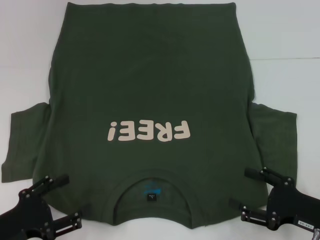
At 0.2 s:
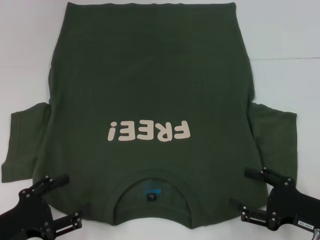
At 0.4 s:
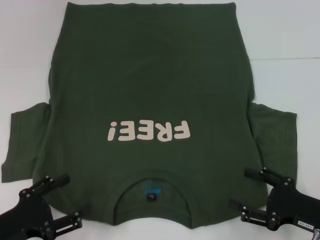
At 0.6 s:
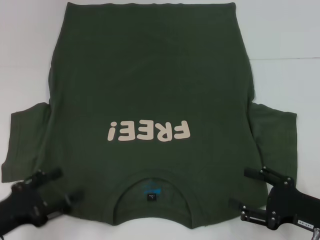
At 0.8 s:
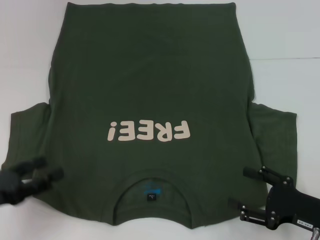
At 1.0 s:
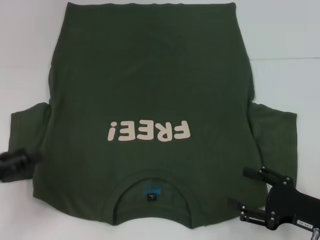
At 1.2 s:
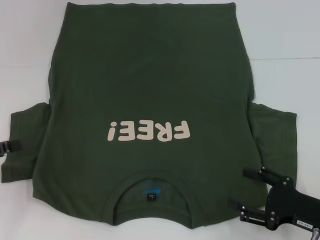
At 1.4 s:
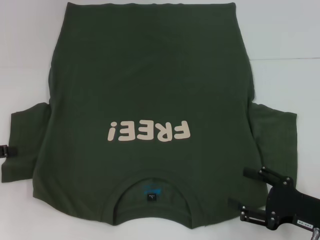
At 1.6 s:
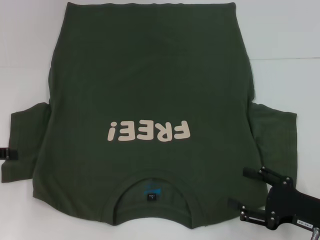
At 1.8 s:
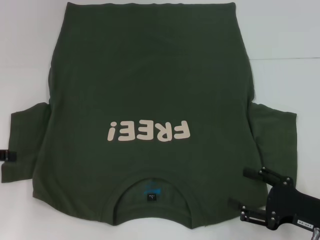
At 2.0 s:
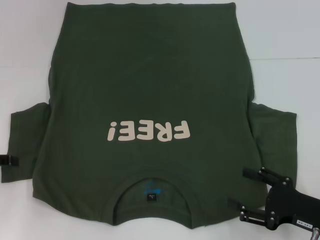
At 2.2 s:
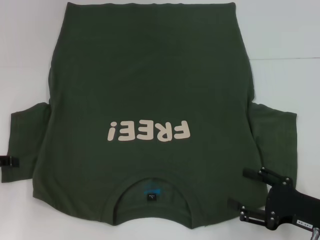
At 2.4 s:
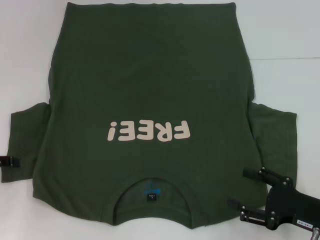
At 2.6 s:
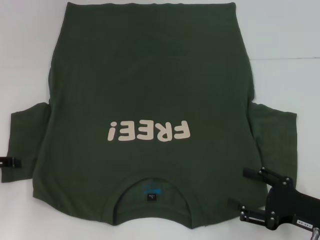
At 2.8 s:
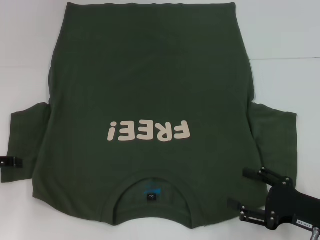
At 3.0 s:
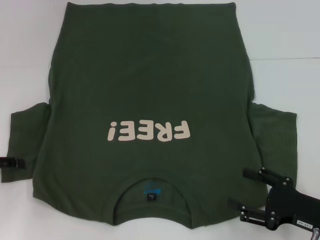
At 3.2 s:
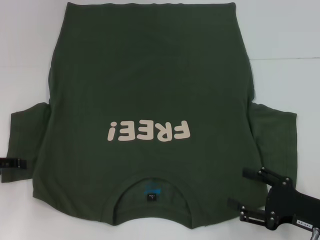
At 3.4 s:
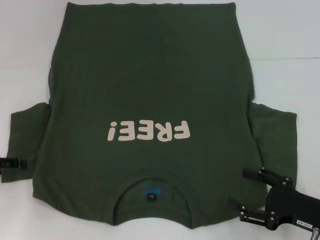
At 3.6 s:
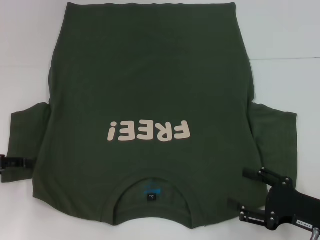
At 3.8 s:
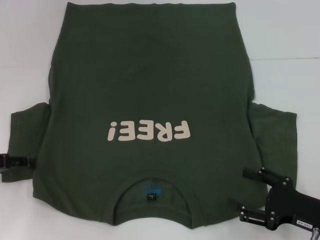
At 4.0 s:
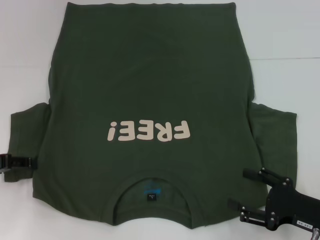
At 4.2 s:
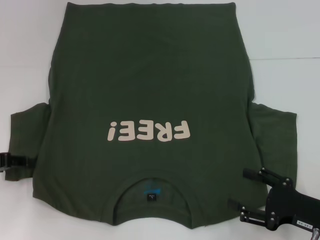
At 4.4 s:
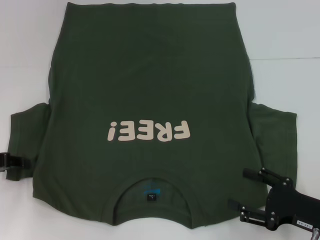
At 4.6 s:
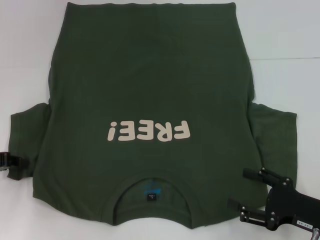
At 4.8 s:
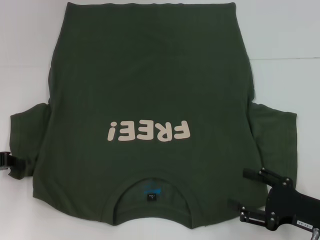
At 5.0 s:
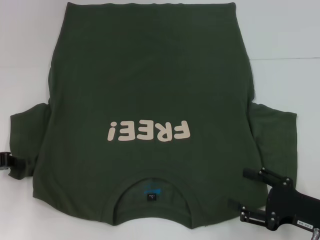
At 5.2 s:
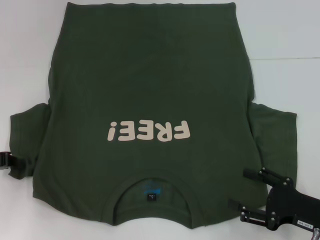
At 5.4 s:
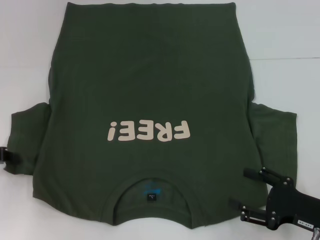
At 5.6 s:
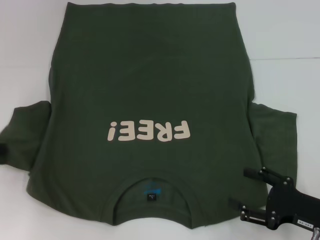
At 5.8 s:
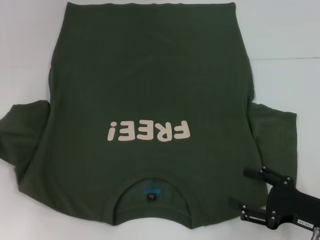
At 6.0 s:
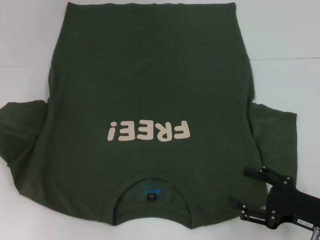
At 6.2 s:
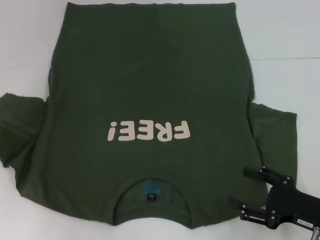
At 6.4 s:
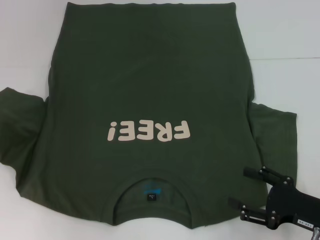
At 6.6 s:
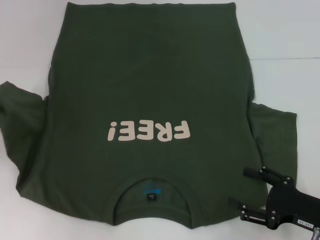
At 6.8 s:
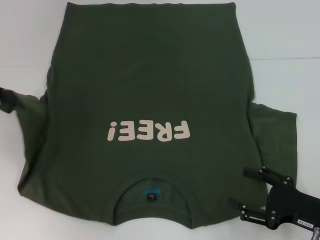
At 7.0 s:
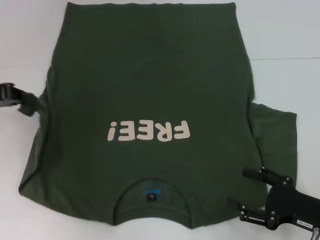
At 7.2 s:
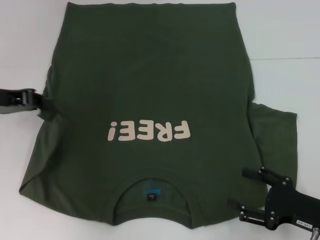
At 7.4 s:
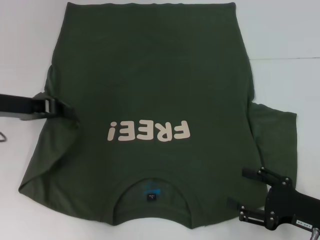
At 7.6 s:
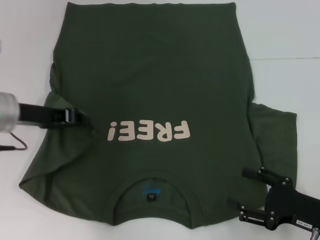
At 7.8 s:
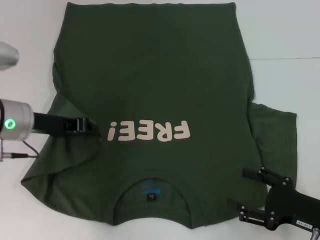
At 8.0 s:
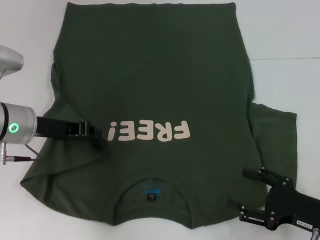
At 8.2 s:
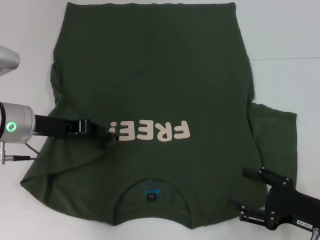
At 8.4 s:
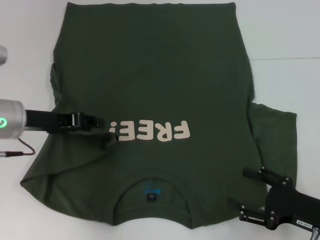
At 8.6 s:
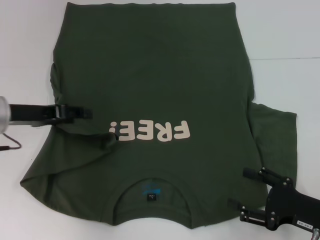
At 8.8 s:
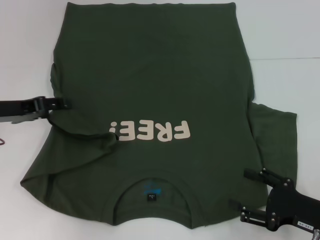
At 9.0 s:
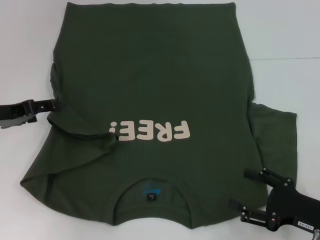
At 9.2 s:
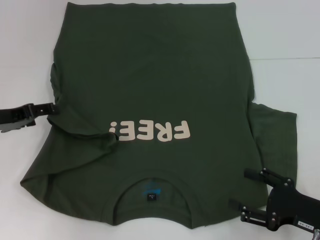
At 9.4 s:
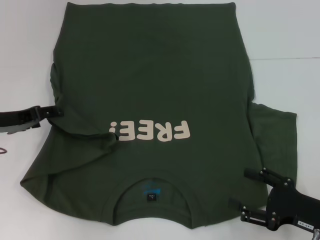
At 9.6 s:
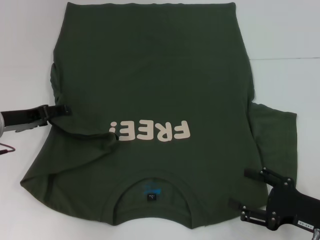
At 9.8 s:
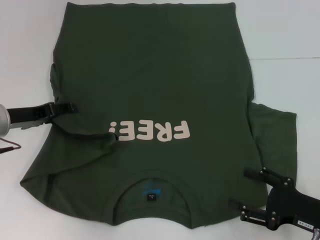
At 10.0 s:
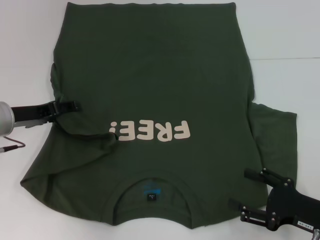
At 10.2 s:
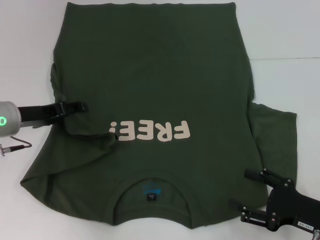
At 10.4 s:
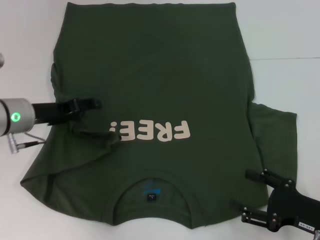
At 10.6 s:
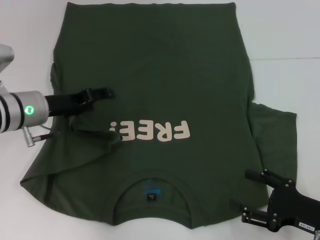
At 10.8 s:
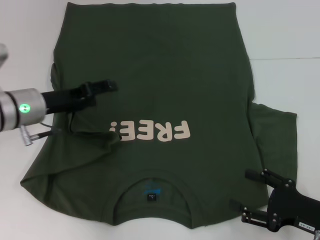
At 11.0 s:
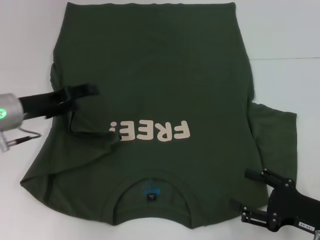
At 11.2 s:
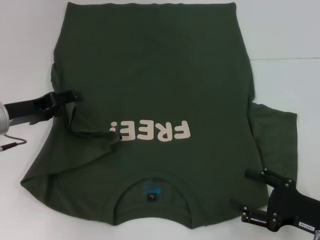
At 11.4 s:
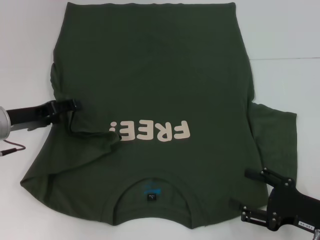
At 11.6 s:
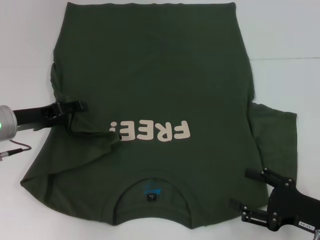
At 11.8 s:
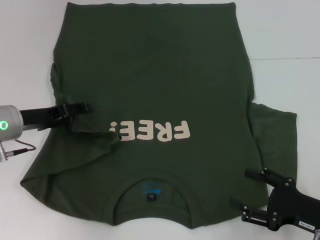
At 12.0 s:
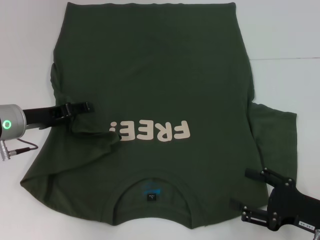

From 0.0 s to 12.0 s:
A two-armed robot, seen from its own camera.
From 0.0 s to 1.6 s: The left gripper is displaced forward, upward and to the left by approximately 20 cm.
From 4.4 s to 6.0 s: The left gripper changes place by some 5 cm, and closes up.
From 6.0 s to 7.6 s: The left gripper goes approximately 15 cm to the right.
From 7.6 s to 9.0 s: The left gripper is displaced to the left by about 5 cm, and opens.
From 9.0 s to 10.4 s: The left gripper heads to the right, covering approximately 5 cm.
From 10.4 s to 12.0 s: The grippers move only a little.

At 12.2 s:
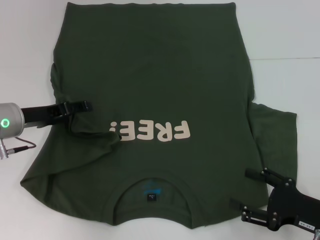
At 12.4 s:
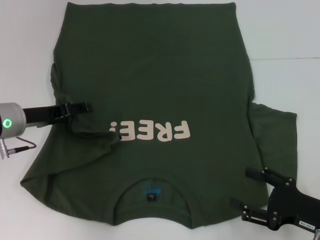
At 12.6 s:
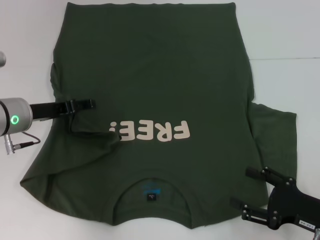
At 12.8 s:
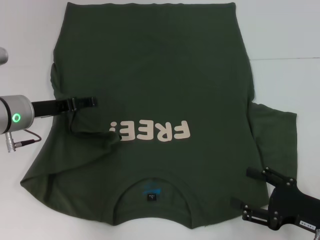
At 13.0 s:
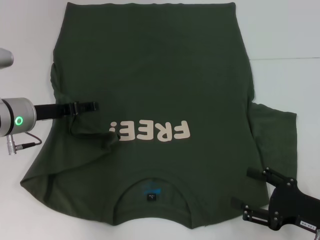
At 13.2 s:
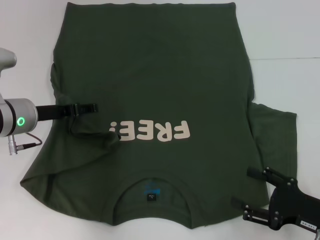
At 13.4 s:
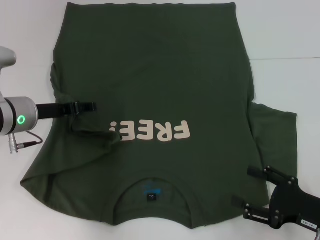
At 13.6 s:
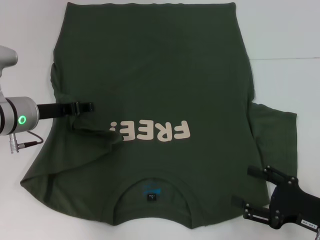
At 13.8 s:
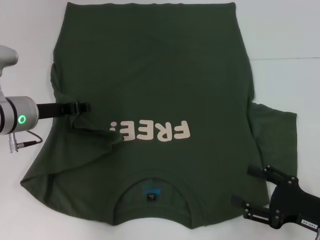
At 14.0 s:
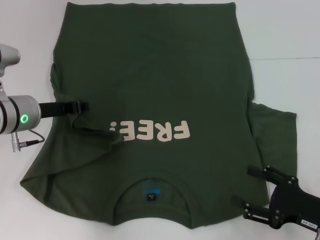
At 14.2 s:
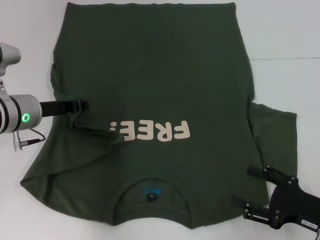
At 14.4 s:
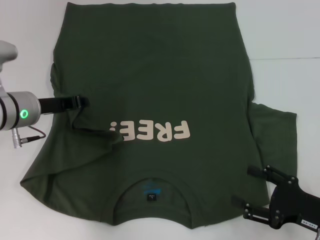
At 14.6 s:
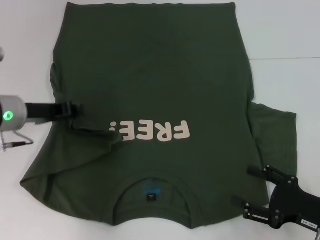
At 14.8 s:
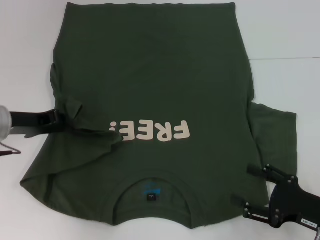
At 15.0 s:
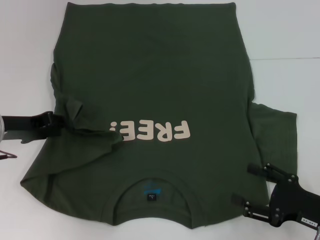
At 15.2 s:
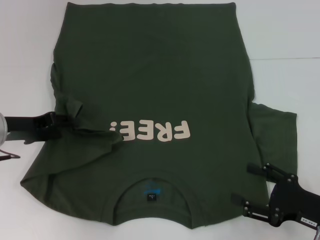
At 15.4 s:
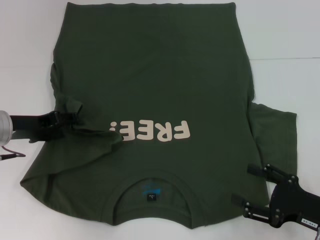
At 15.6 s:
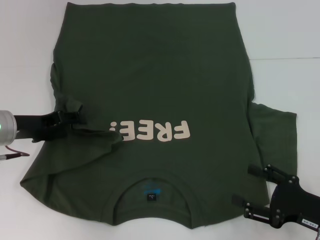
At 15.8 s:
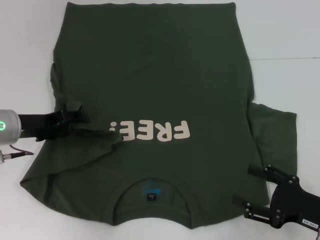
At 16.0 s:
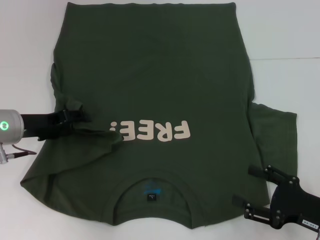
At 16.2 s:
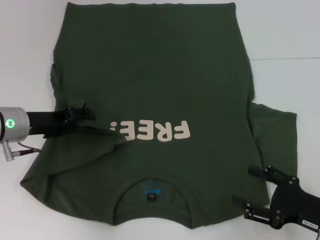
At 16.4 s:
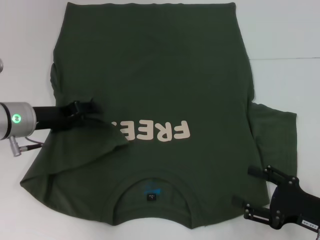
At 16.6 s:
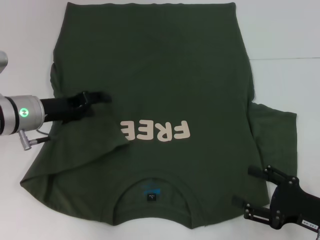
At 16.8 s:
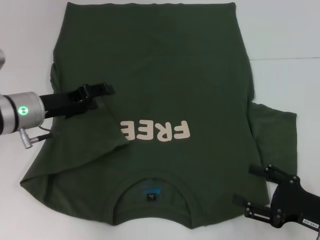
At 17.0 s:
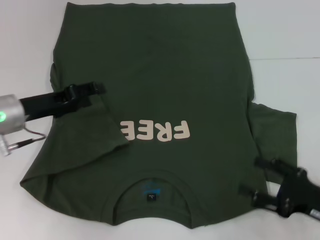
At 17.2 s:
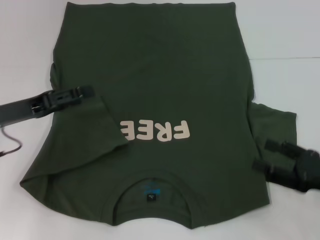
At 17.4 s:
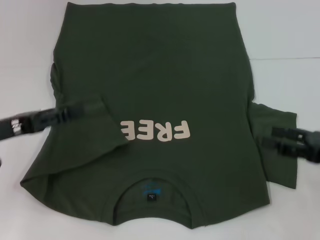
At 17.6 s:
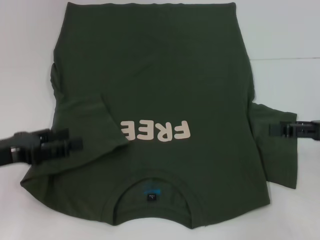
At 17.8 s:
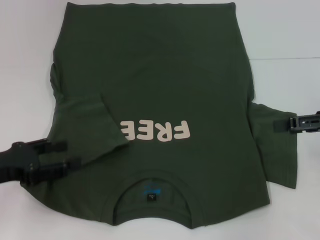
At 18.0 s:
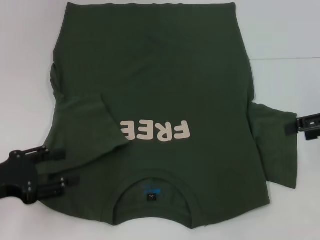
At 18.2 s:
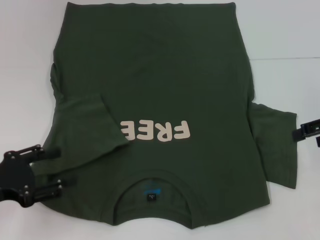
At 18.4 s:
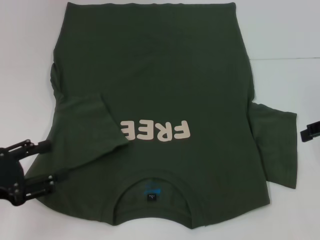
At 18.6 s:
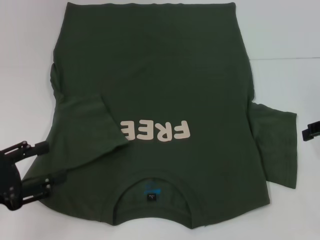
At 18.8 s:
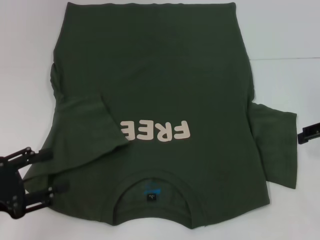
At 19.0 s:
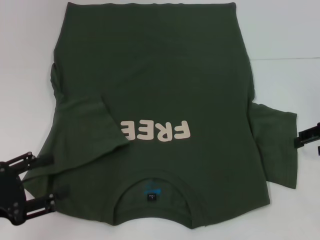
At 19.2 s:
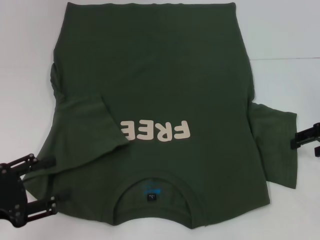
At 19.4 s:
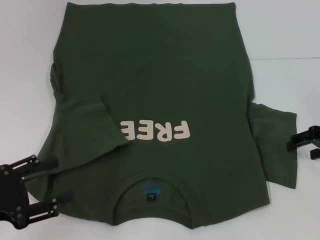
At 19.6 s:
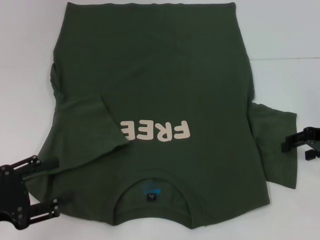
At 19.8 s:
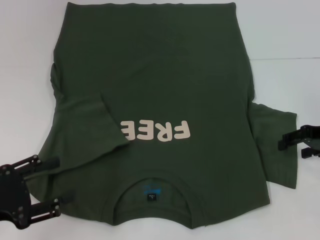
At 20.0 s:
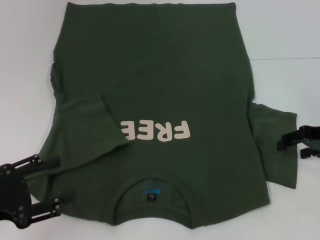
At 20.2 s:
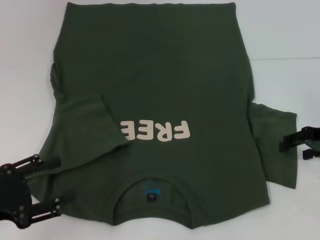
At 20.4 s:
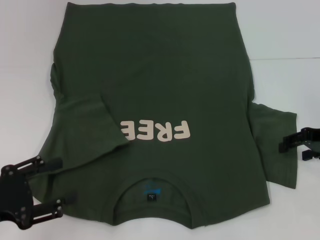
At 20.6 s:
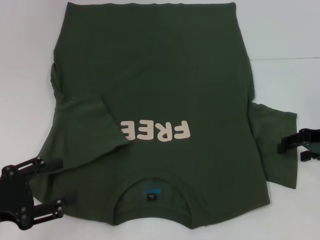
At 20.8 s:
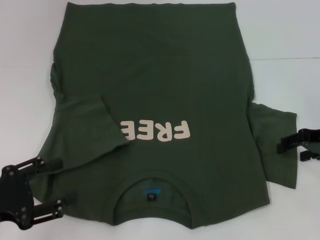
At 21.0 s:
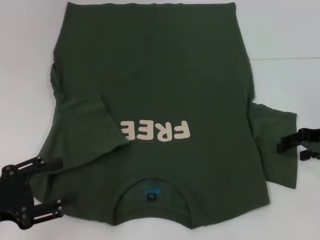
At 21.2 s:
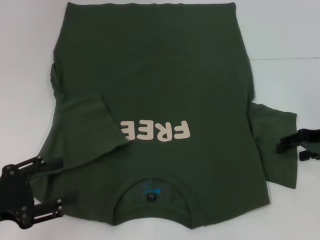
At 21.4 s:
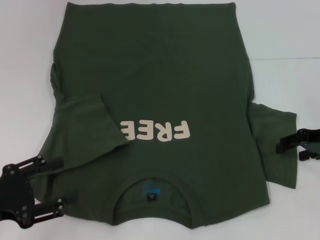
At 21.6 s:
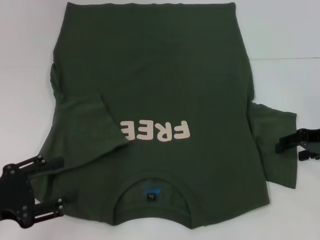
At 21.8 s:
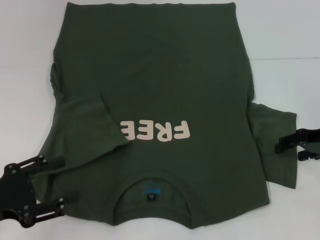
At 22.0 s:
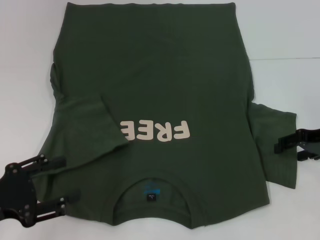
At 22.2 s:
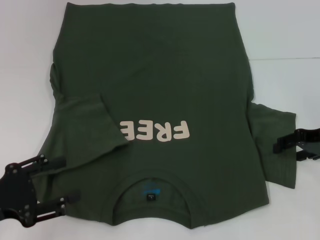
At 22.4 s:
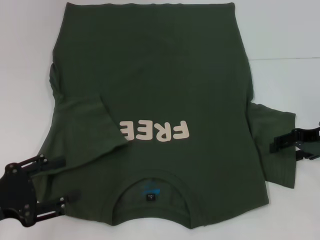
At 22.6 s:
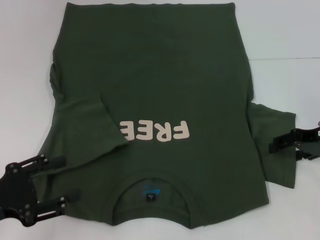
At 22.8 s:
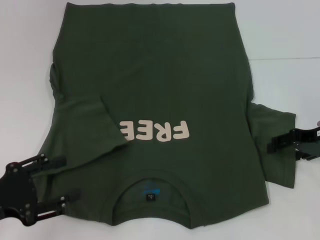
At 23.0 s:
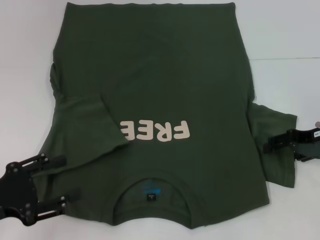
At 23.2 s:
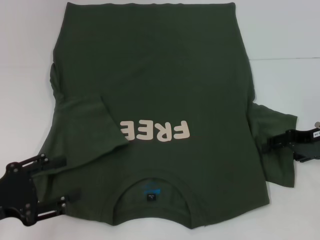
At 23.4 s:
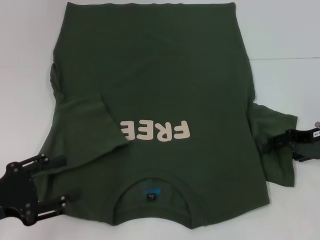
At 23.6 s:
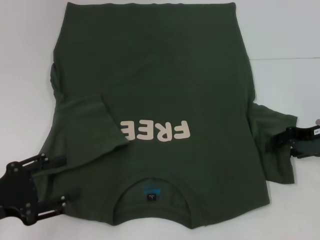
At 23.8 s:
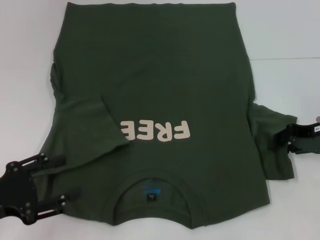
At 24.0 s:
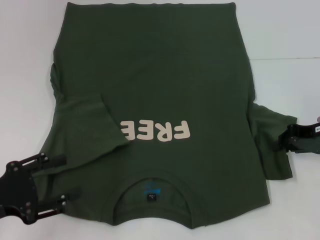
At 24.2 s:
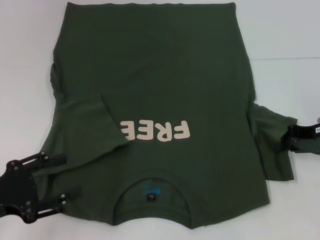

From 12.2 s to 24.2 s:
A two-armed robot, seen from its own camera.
Step, from 12.2 s to 16.4 s: Fold the bottom left sleeve with your left hand.
From 12.2 s to 13.8 s: The left gripper closes.
From 13.8 s to 15.2 s: The left gripper shifts by some 5 cm, and closes, then opens again.
From 15.2 s to 16.6 s: The left gripper moves to the right, approximately 5 cm.
From 16.6 s to 18.2 s: The right gripper shifts approximately 20 cm upward and forward. The left gripper is displaced backward and to the left by roughly 15 cm.
From 18.2 s to 19.8 s: The right gripper is displaced downward by some 5 cm.
From 19.8 s to 21.2 s: Neither gripper changes place.
From 21.2 s to 22.6 s: Neither gripper changes place.
From 22.6 s to 24.2 s: The right gripper closes.
